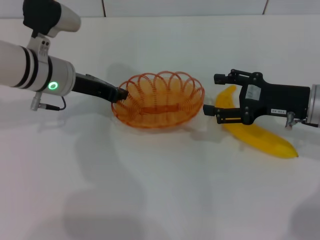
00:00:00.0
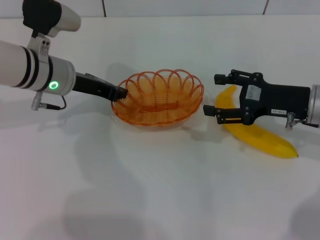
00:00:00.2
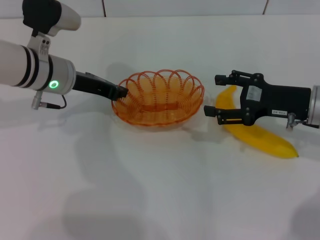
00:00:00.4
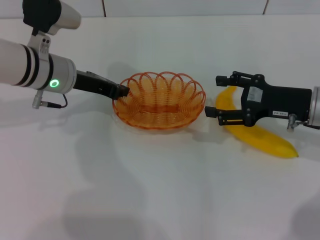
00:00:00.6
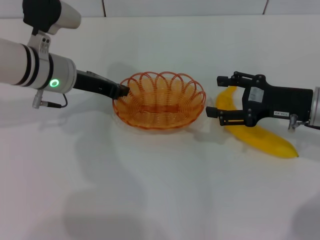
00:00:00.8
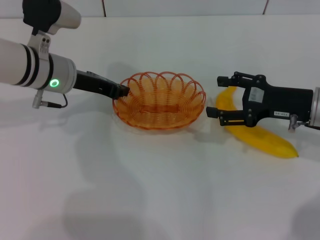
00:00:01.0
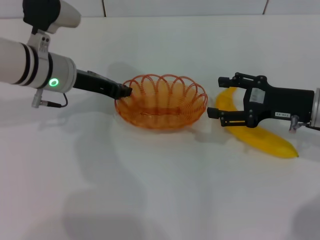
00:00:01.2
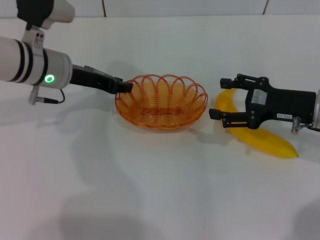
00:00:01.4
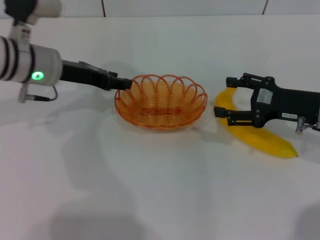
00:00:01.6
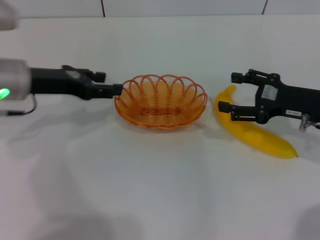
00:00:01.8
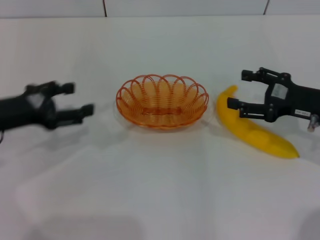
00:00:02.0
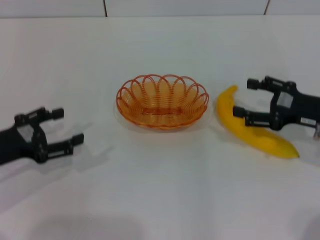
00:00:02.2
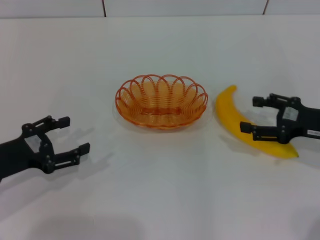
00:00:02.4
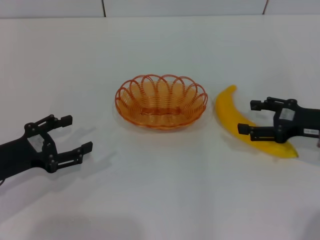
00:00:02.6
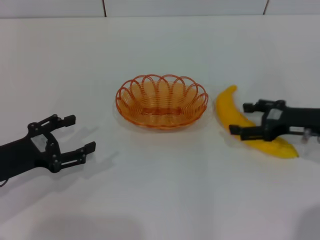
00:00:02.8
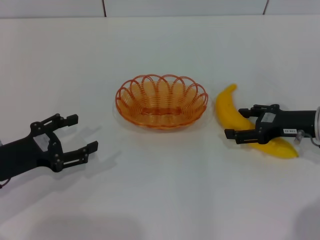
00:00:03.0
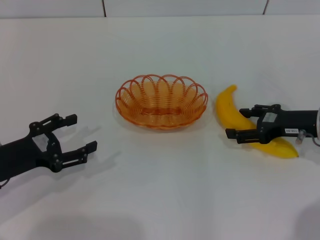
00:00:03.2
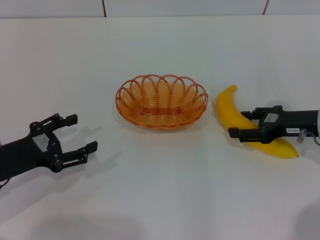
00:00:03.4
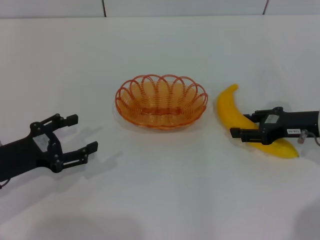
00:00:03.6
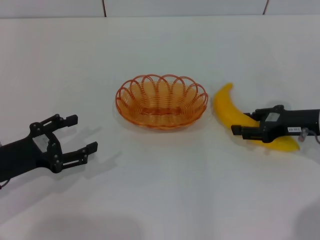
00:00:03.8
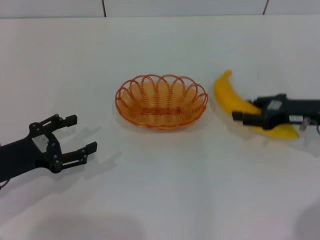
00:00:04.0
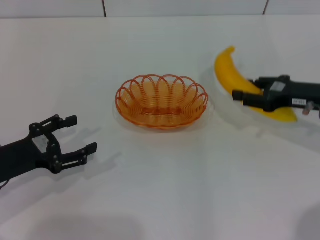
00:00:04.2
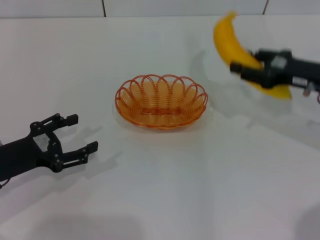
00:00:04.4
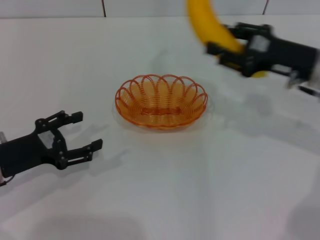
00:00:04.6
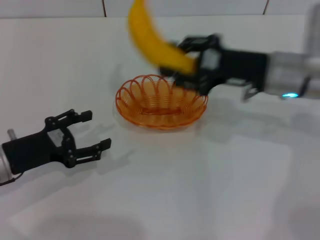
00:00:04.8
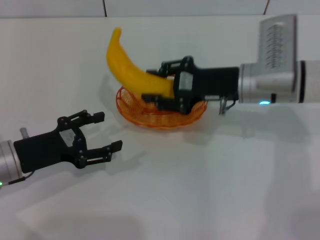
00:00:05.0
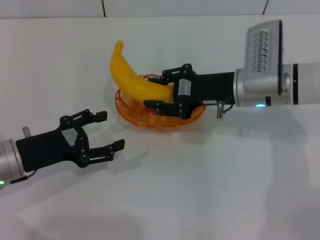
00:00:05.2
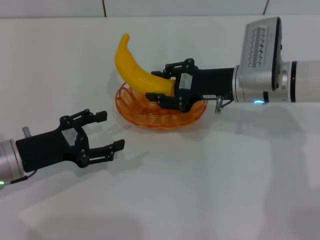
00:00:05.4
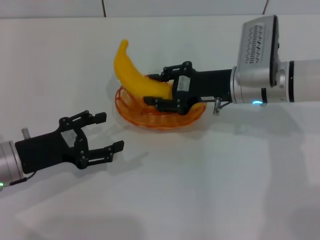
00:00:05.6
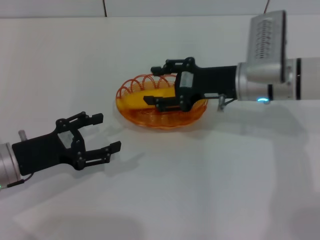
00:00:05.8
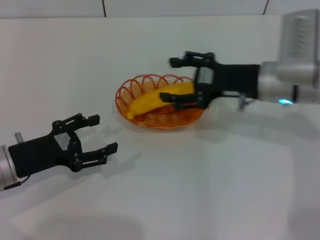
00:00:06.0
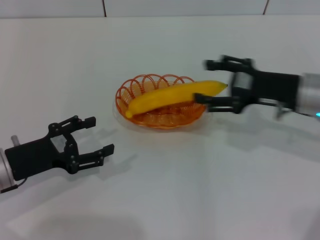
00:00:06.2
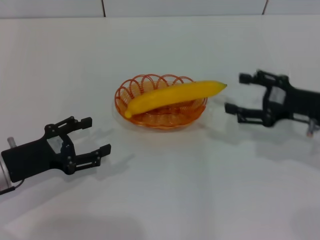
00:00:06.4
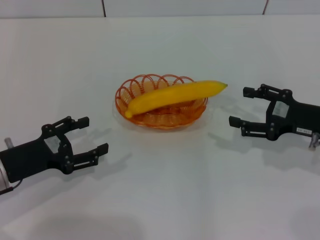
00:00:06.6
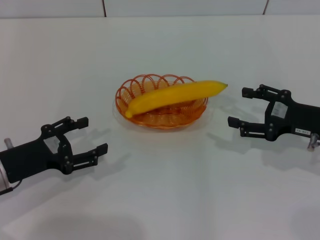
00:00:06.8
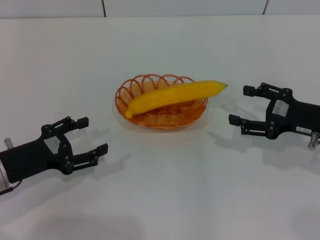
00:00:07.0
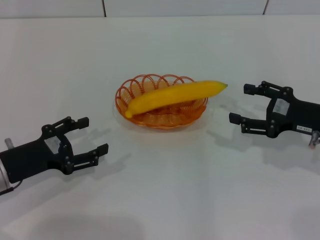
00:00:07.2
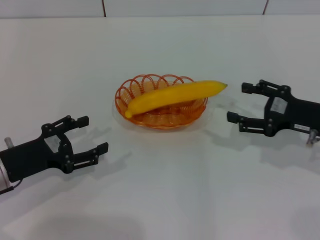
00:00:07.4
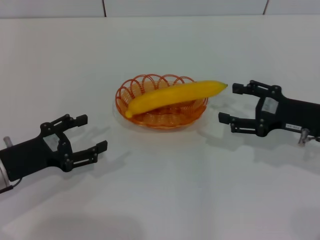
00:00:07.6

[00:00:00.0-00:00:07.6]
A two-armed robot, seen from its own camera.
Step, 00:00:02.0 to 00:00:04.0: Pick up the banana with the right gripper.
Step, 00:00:04.2 to 00:00:06.2: Place the banana into the basket with the right gripper.
00:00:00.0 to 00:00:01.6: The left gripper opens up.
00:00:01.6 to 00:00:03.0: The left gripper goes roughly 20 cm backward, to the left and downward, and opens its fingers.
00:00:03.0 to 00:00:04.6: The right gripper moves upward, about 5 cm, and closes.
00:00:04.6 to 00:00:06.0: The right gripper moves to the left, approximately 5 cm, and opens.
00:00:06.0 to 00:00:07.6: The right gripper shifts roughly 10 cm to the right and backward, and opens.

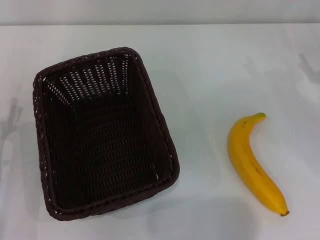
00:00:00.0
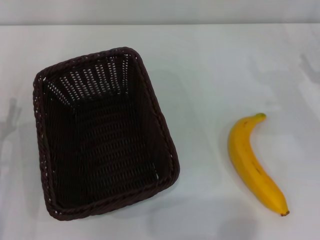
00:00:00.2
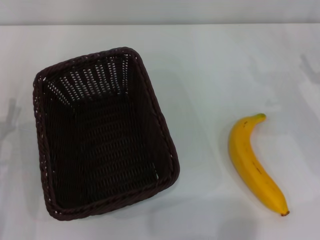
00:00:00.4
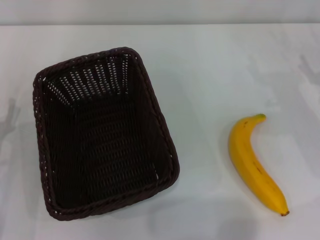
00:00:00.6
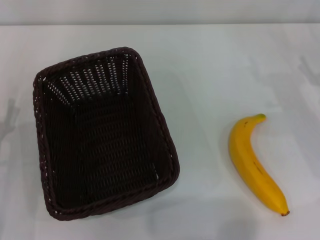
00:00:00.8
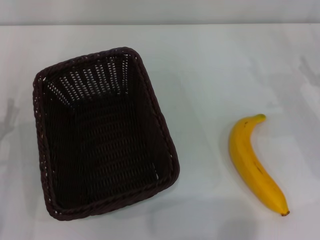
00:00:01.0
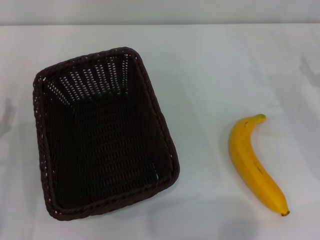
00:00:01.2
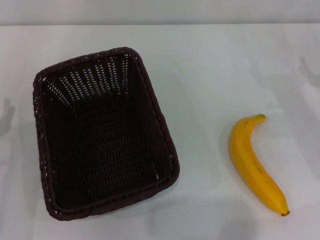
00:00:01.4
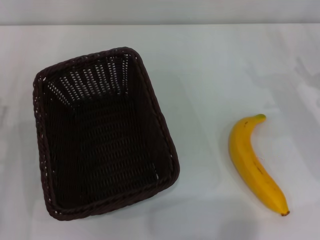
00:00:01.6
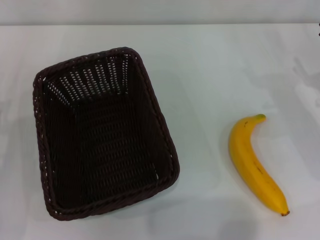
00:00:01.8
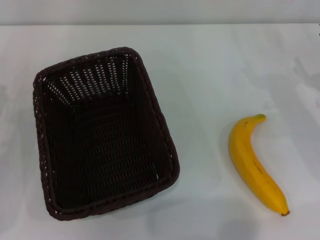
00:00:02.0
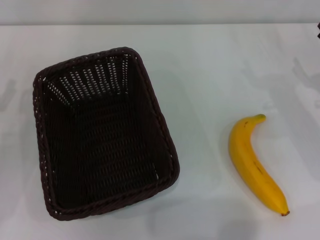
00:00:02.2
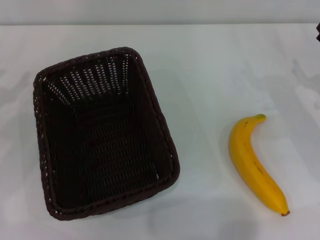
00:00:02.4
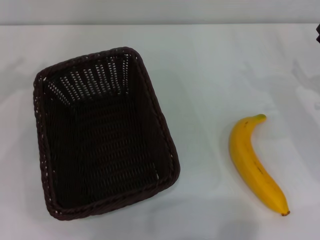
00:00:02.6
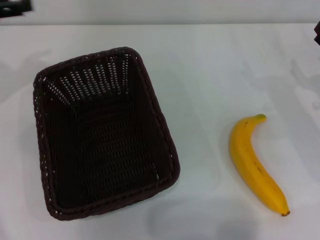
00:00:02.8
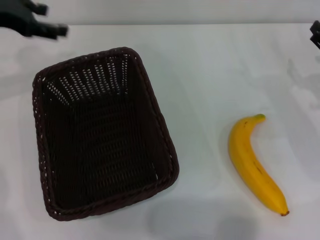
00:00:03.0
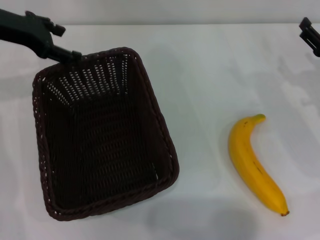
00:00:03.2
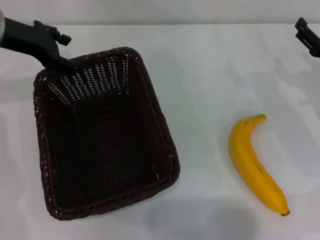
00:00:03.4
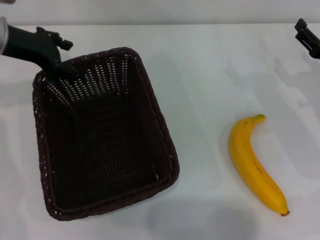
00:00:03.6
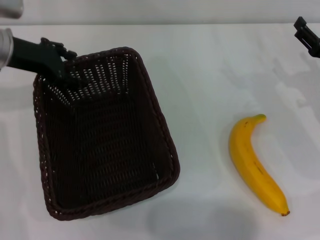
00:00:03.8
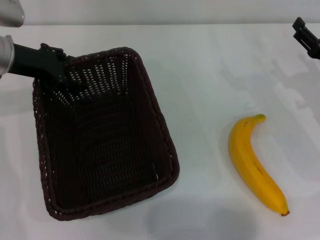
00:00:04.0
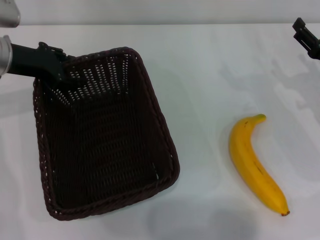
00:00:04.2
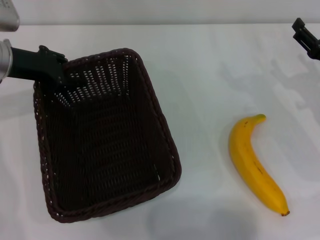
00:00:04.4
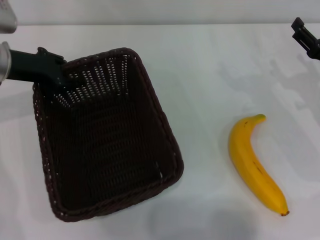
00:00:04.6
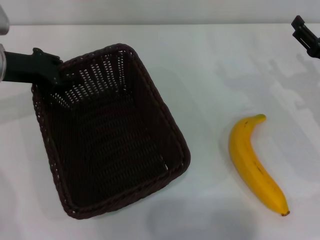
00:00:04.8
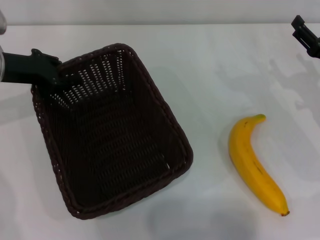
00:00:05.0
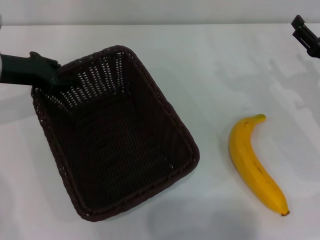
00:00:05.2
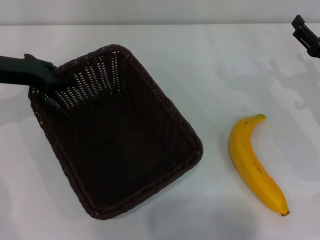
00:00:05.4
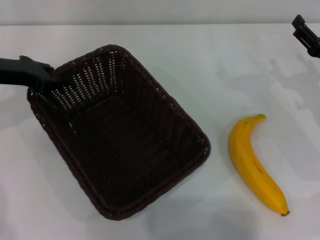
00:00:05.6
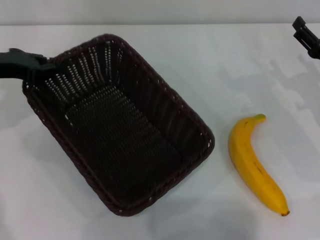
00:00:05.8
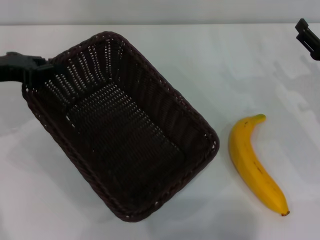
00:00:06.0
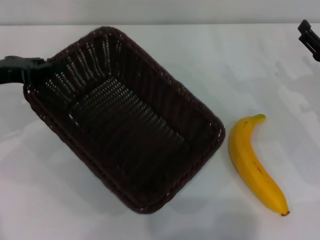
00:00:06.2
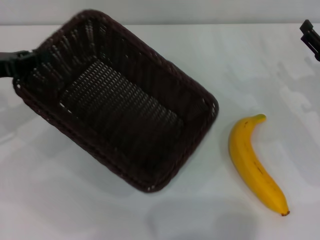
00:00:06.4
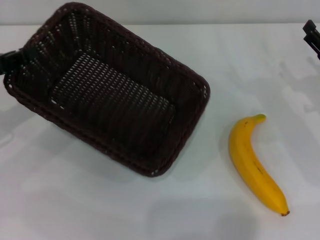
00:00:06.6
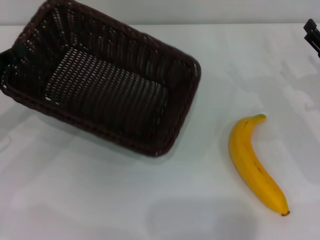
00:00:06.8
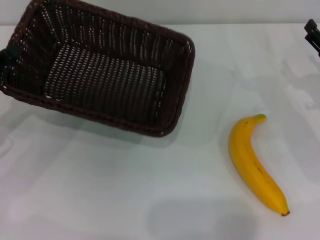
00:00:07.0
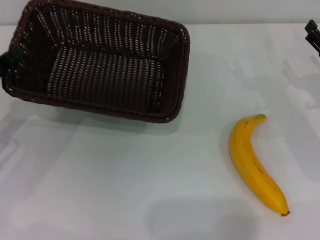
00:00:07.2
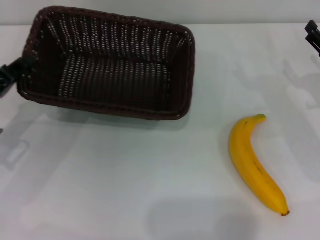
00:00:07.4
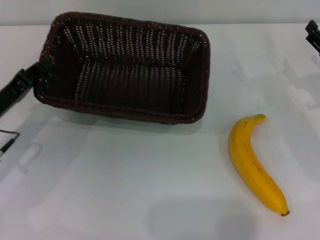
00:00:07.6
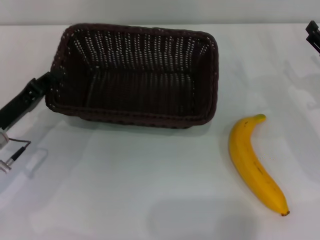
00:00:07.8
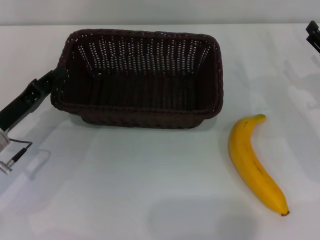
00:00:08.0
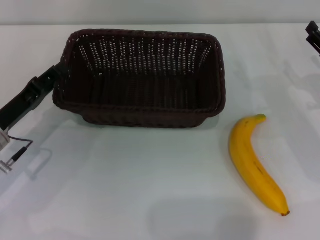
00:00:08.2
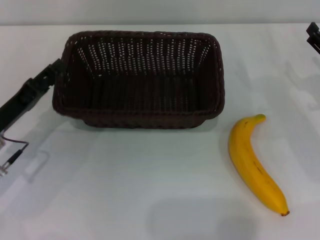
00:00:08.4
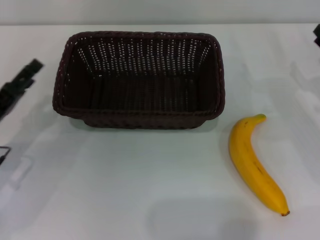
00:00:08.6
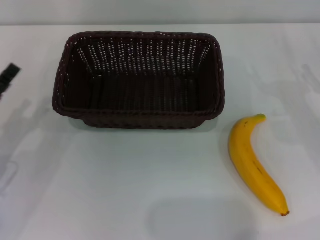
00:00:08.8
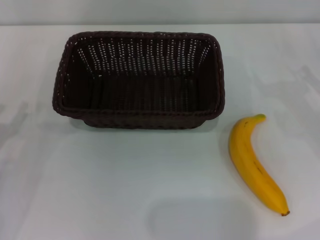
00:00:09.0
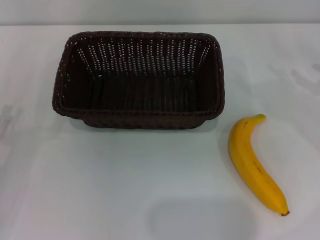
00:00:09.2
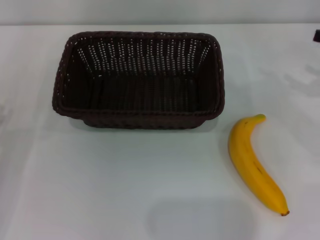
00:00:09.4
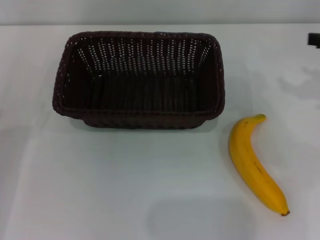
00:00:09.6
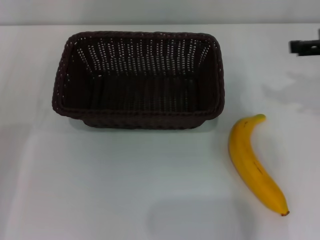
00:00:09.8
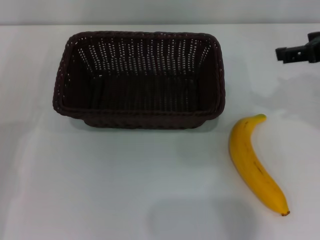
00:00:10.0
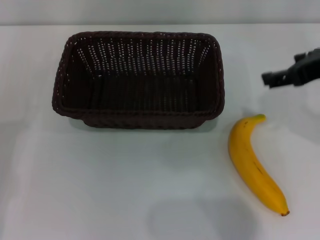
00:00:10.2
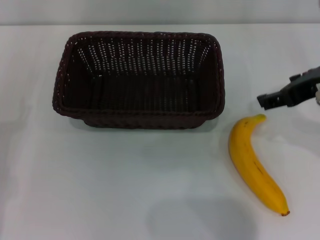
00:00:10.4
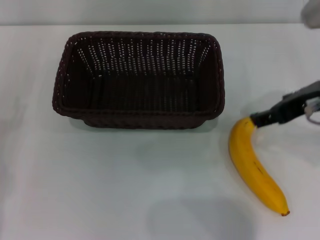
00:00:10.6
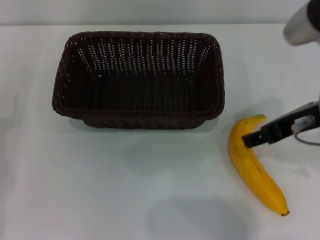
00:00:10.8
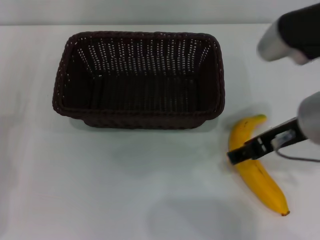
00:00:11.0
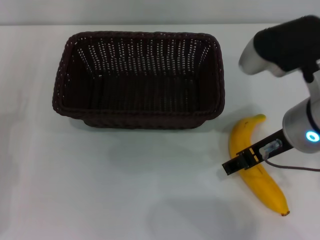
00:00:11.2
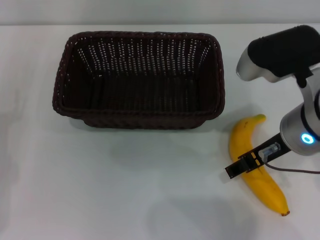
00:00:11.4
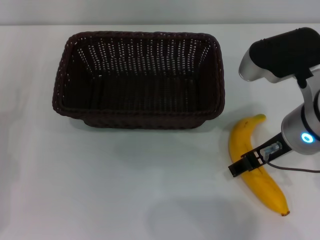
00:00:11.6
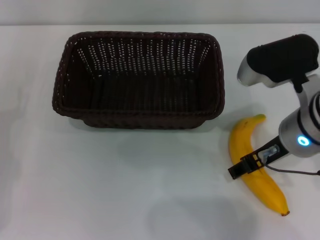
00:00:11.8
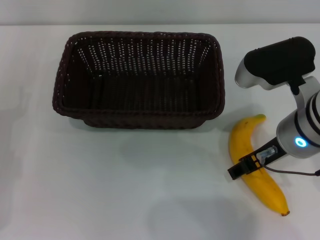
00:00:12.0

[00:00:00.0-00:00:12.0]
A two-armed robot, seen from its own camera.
Step, 00:00:00.0 to 00:00:05.8: Pick up the dark basket with the left gripper.
Step, 00:00:06.0 to 00:00:08.6: Place the dark basket in the center of view with the left gripper.
00:00:01.6 to 00:00:03.0: The left gripper moves forward and upward, roughly 25 cm.
00:00:03.0 to 00:00:04.4: The left gripper heads downward, covering approximately 5 cm.
00:00:04.4 to 00:00:06.0: The left gripper shifts by about 5 cm, and closes up.
00:00:06.0 to 00:00:07.6: The left gripper travels downward and backward by about 10 cm.
00:00:07.6 to 00:00:09.0: The left gripper moves backward, some 5 cm, and opens, while the right gripper heads to the right, covering about 5 cm.
00:00:09.0 to 00:00:10.4: The right gripper is displaced upward and to the left by some 20 cm.
00:00:10.4 to 00:00:12.0: The right gripper moves downward and to the left, approximately 10 cm.

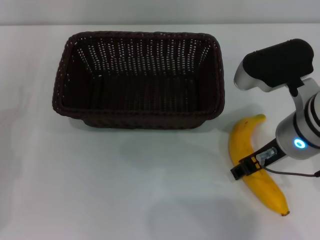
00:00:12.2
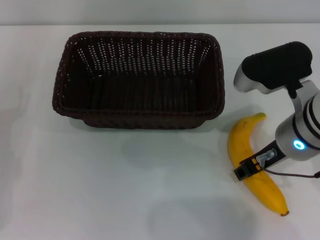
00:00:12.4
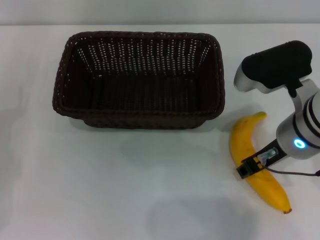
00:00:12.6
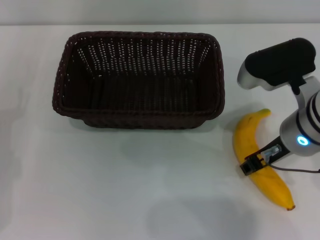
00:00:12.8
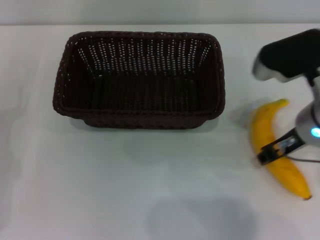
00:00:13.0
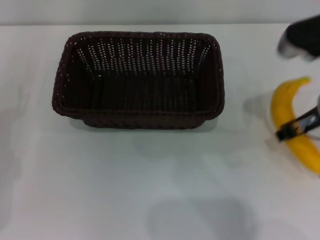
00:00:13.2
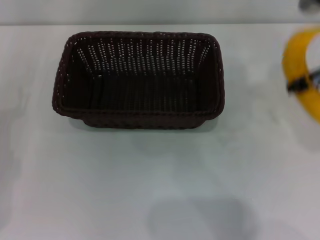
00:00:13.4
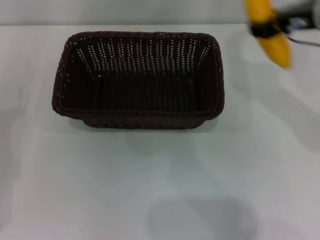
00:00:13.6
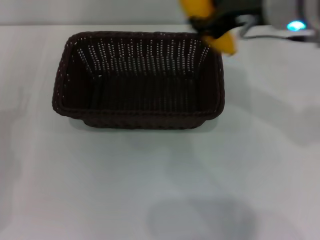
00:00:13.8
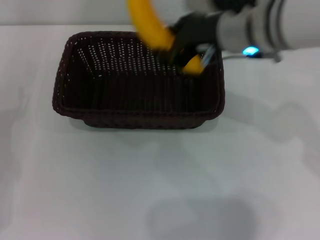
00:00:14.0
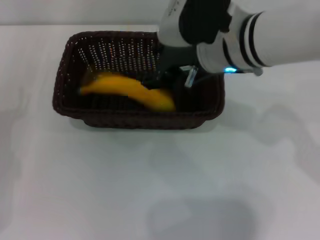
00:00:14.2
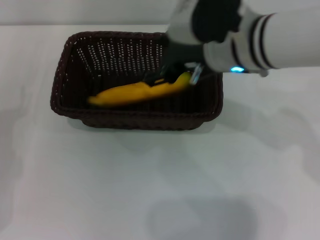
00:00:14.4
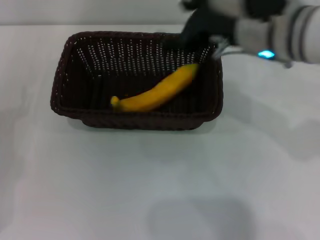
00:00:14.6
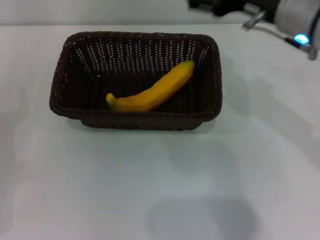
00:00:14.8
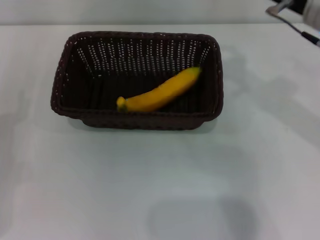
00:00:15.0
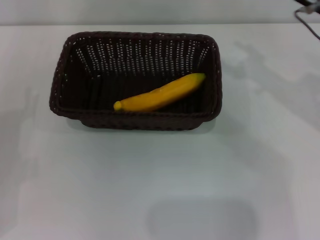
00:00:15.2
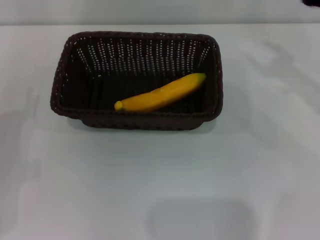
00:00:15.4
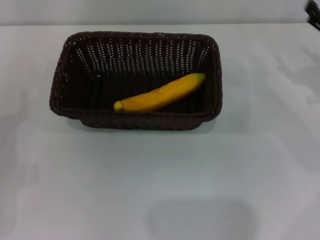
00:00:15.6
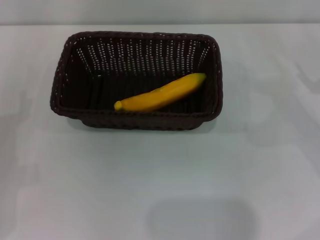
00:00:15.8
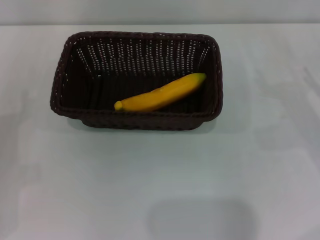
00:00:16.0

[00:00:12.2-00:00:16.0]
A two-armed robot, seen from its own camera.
Step, 00:00:13.4 to 00:00:14.6: Place the banana into the dark basket with the right gripper.
00:00:12.2 to 00:00:13.4: The right gripper heads to the right and upward, covering approximately 10 cm, and closes its fingers.
00:00:13.4 to 00:00:14.8: The right gripper heads to the left, covering approximately 5 cm, and opens.
00:00:14.8 to 00:00:16.0: The right gripper moves to the right and downward, approximately 25 cm.
